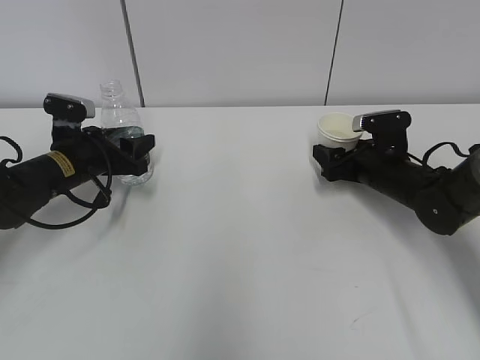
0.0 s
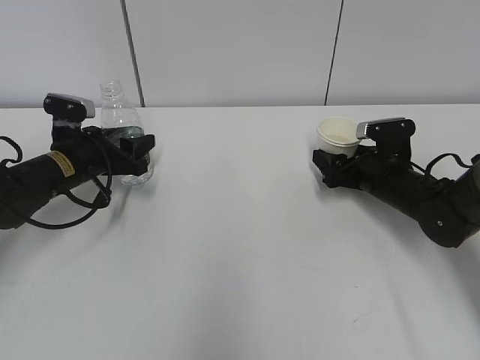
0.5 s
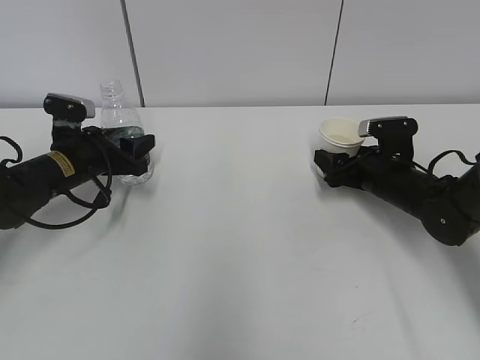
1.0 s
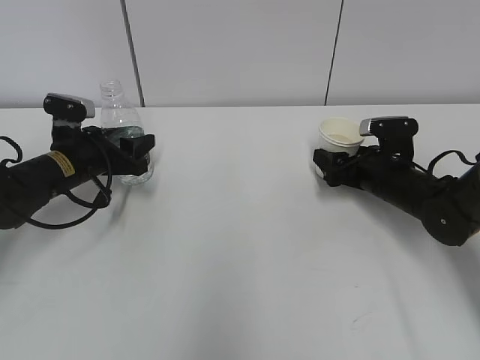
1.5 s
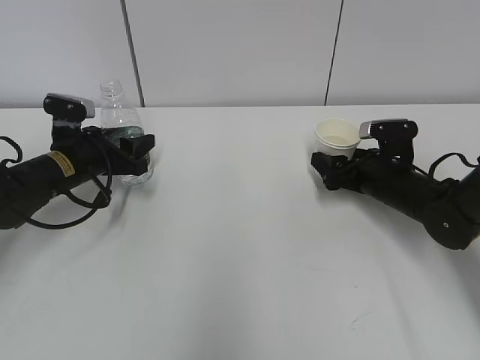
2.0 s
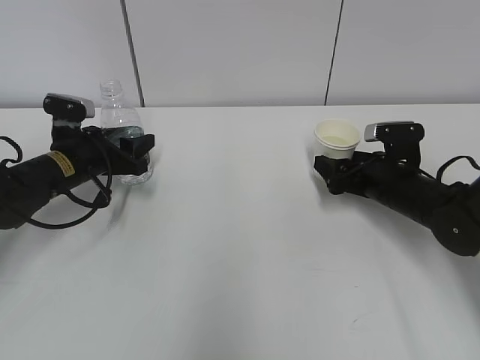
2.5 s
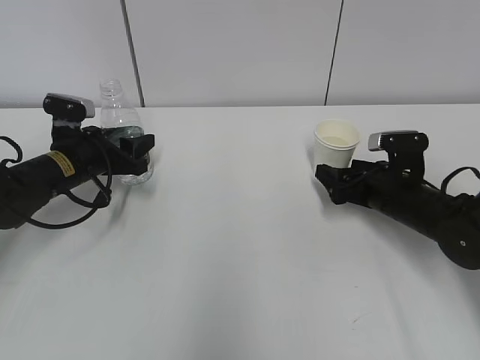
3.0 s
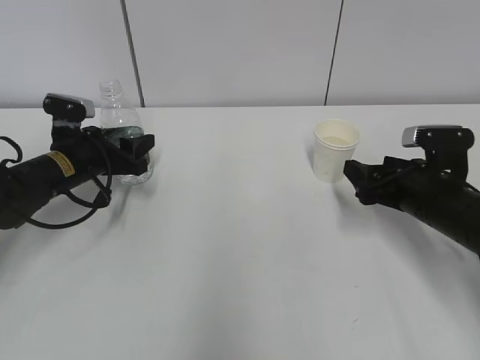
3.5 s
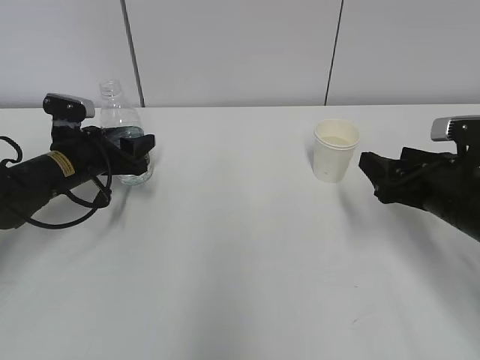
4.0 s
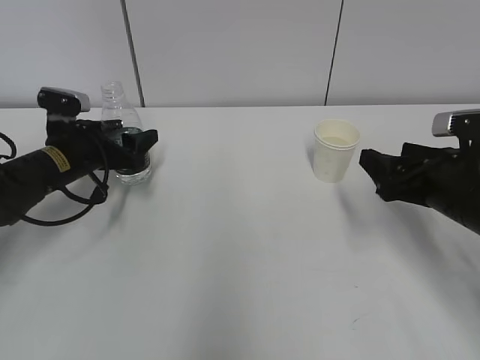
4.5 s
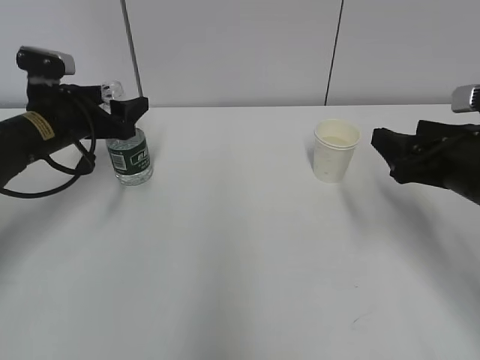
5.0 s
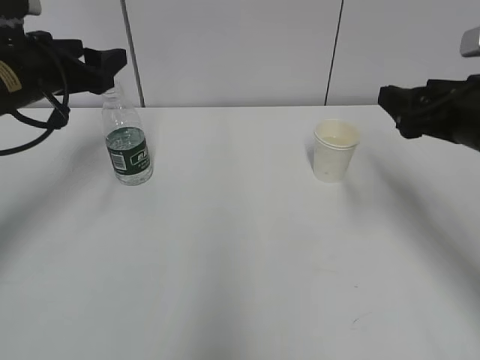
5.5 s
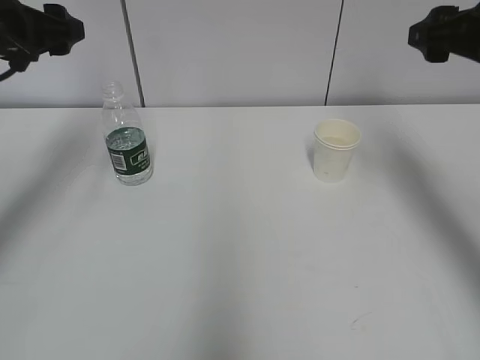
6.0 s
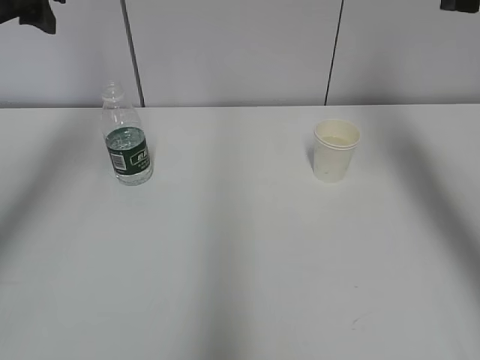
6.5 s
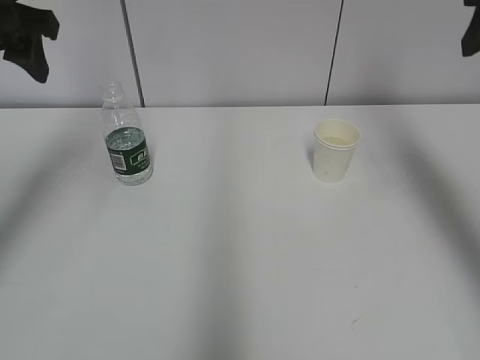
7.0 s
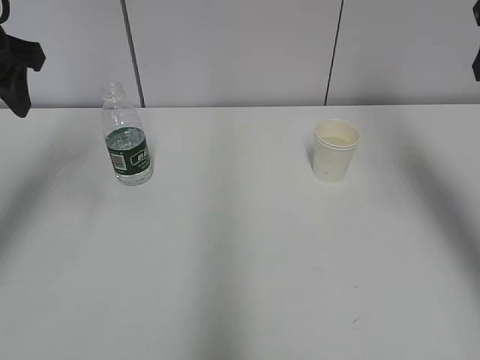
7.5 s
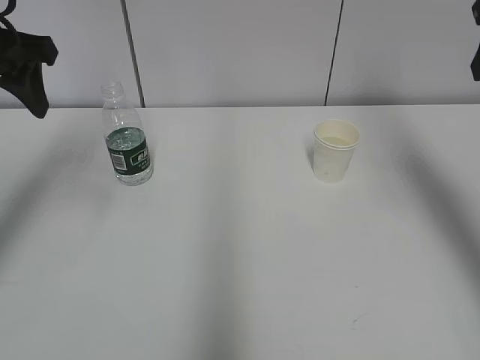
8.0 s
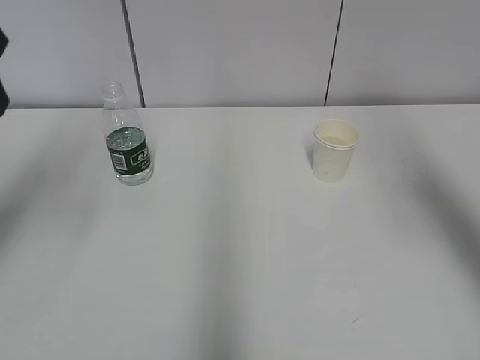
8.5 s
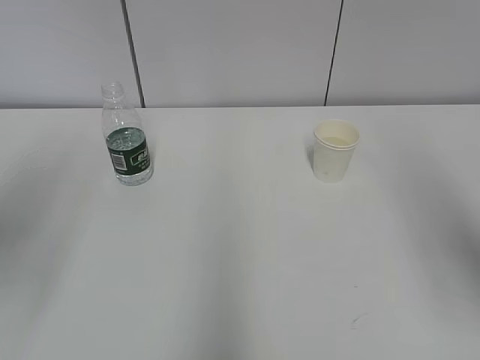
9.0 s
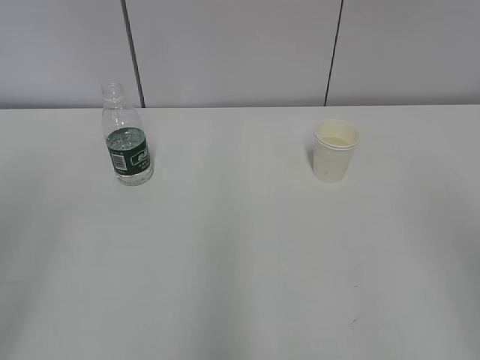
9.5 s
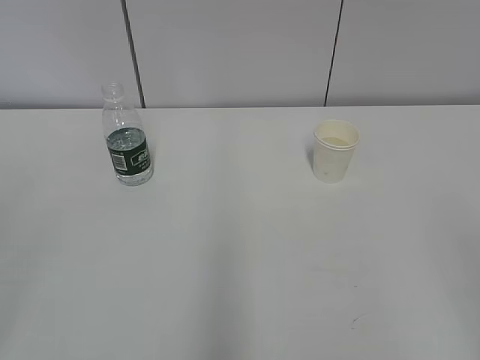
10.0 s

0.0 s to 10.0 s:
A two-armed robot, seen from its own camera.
0.0 to 2.0 s: There are only small adjustments of the grippers.
2.0 to 4.0 s: The right gripper heads backward and upward, covering some 15 cm.
4.0 to 6.0 s: Both grippers move upward, roughly 20 cm. The left gripper opens up.
6.0 to 8.0 s: The right gripper travels upward by about 5 cm, while the left gripper changes place by about 5 cm.
8.0 to 10.0 s: The two grippers go approximately 30 cm backward.

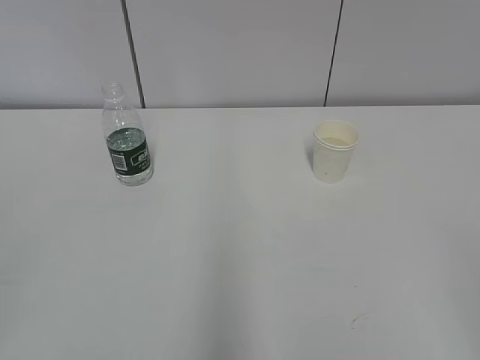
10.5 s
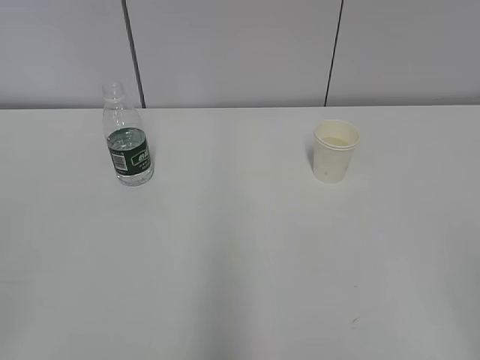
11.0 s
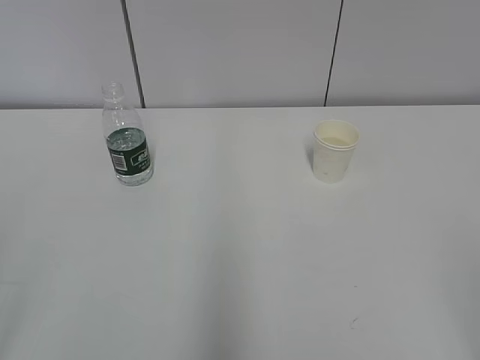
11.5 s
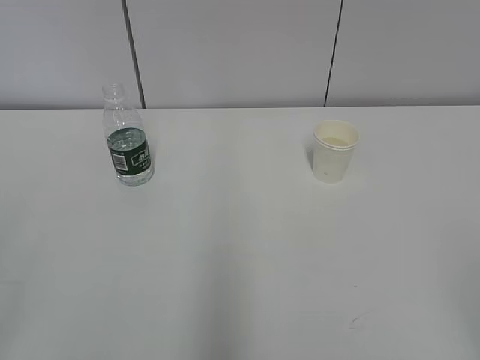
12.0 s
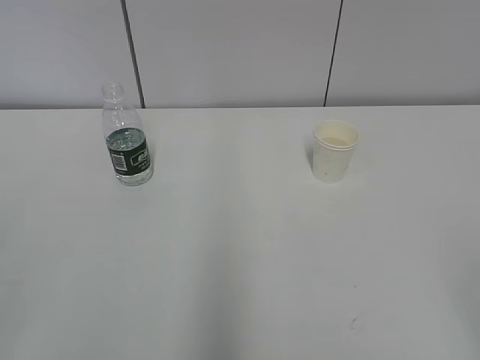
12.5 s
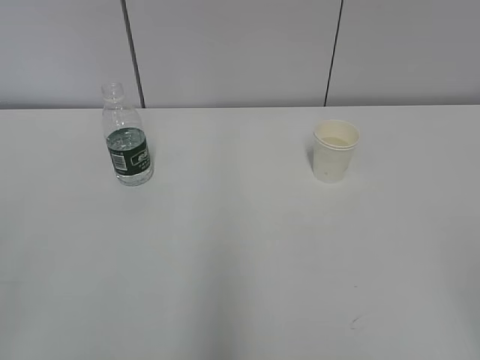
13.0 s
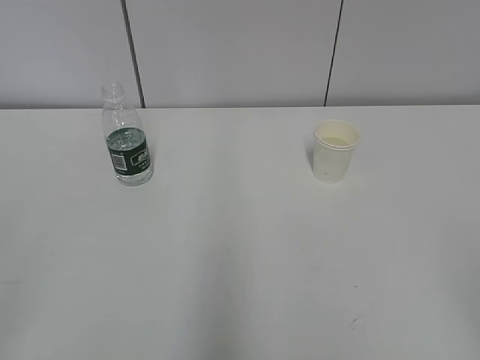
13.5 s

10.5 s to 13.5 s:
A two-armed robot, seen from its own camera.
12.0 to 13.5 s: The two grippers keep their place.

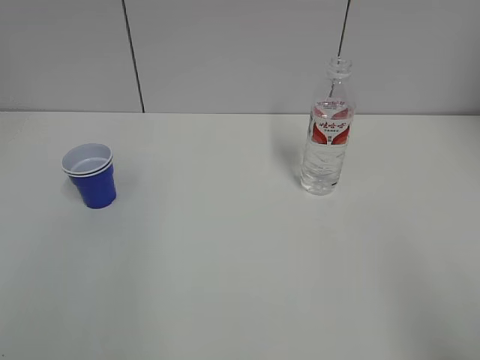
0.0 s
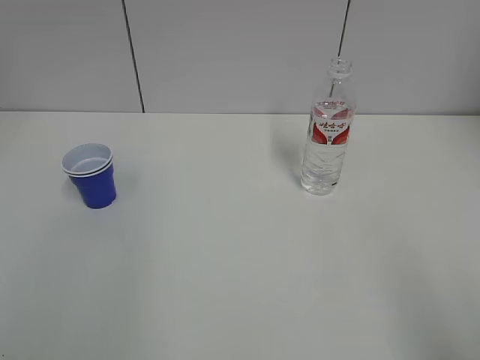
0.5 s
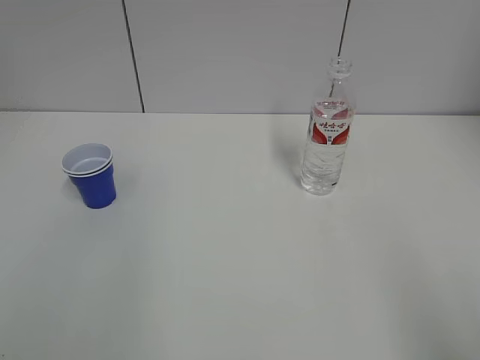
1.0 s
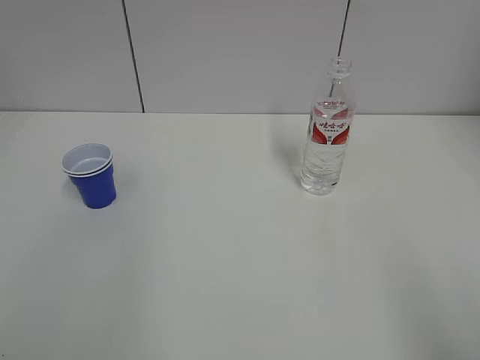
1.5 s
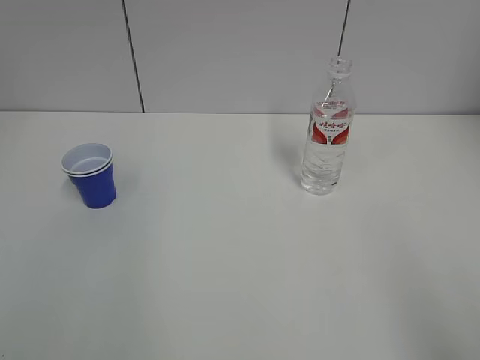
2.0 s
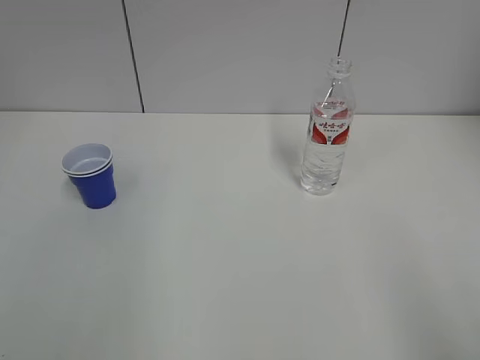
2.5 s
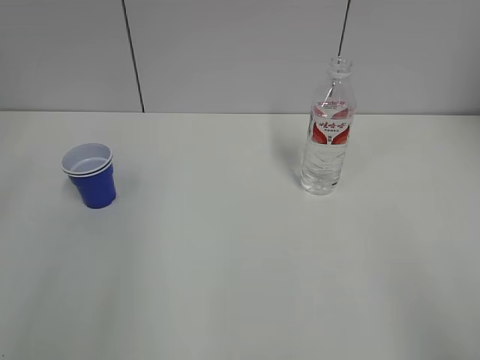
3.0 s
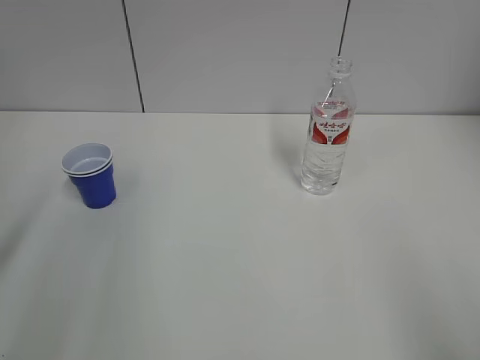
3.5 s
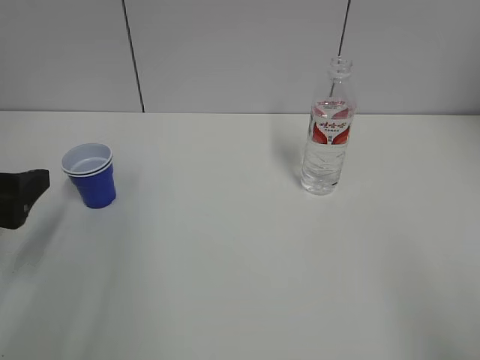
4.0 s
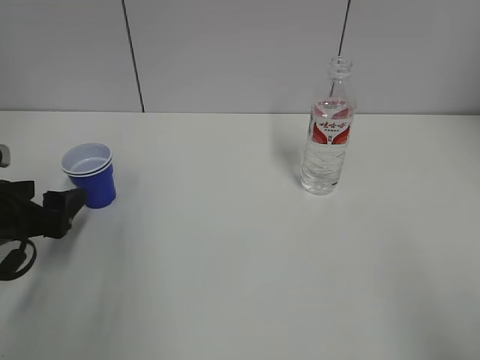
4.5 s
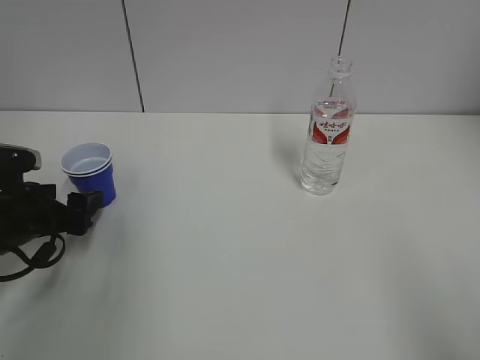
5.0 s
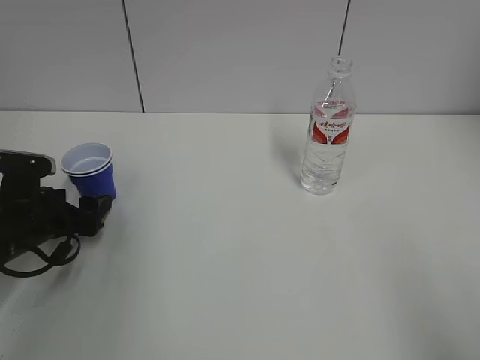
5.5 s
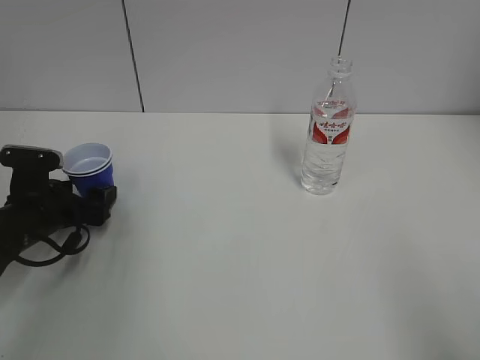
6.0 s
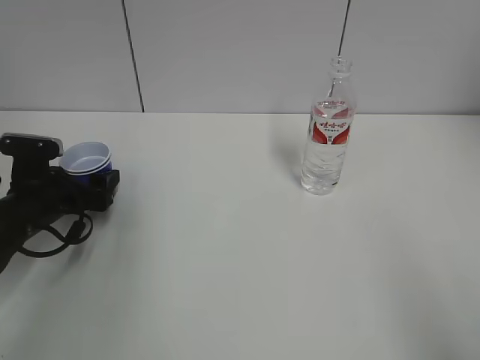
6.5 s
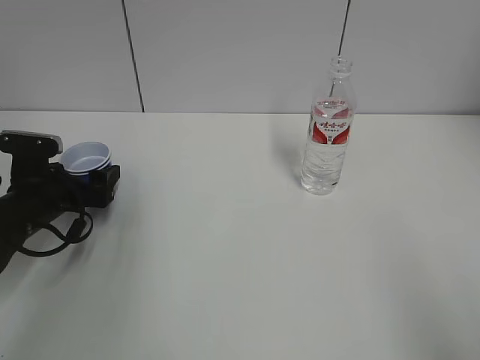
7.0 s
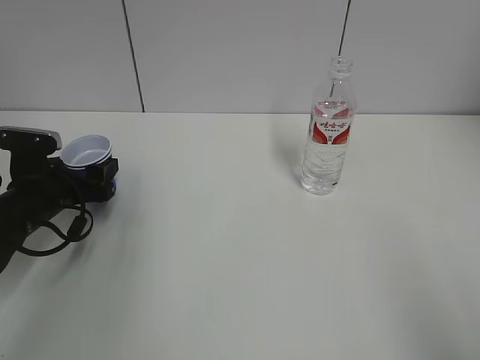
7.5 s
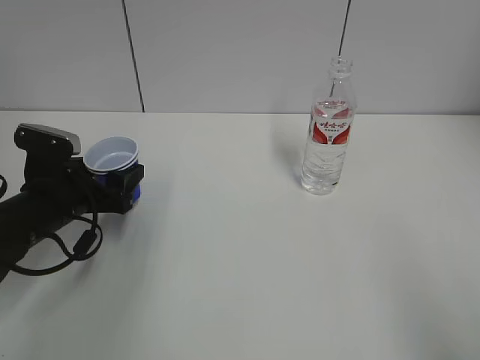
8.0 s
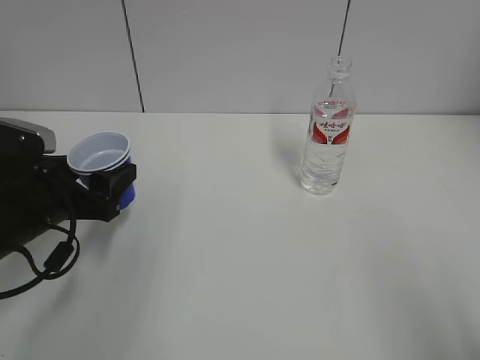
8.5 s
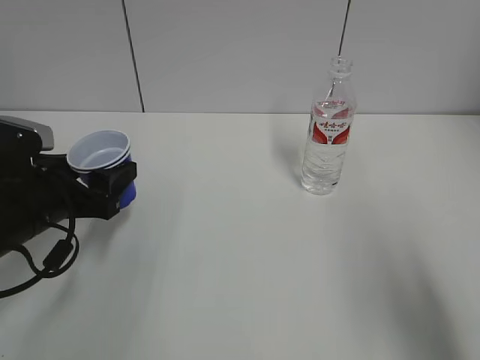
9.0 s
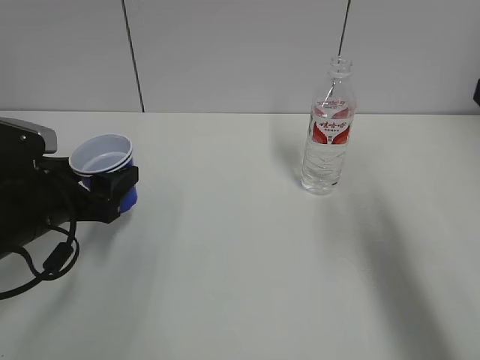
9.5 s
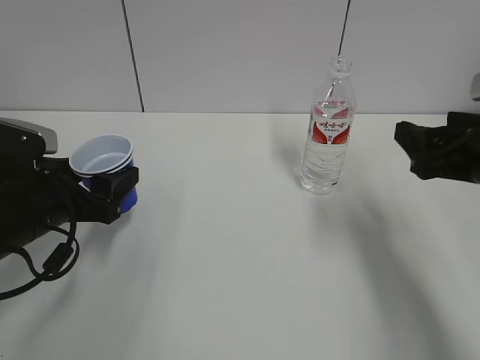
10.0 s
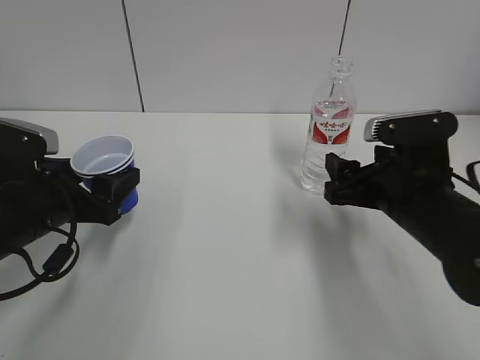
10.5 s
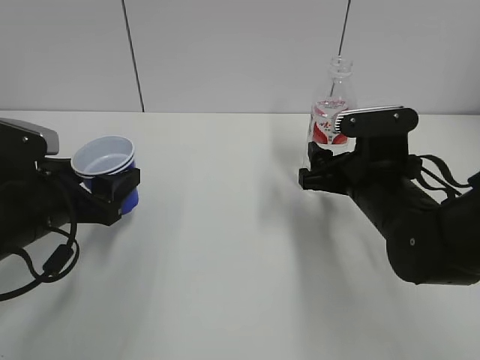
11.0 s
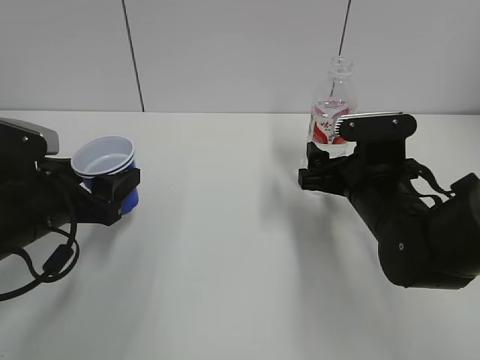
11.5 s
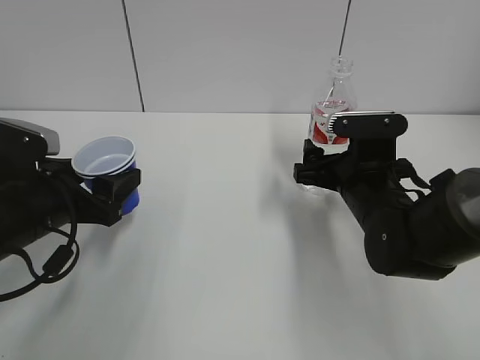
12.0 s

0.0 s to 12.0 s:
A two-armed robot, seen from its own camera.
Step, 0.0 to 6.0 s: Grab the paper cup with the left hand.
2.0 to 4.0 s: The left gripper moves forward and downward, approximately 25 cm, and opens its fingers.
4.0 to 6.0 s: The left gripper shifts about 15 cm downward and forward.
6.0 to 8.0 s: The left gripper ends up some 5 cm from where it was.
8.0 to 10.0 s: The right gripper heads forward, covering roughly 25 cm; the left gripper shifts by some 5 cm.
10.0 to 12.0 s: The right gripper is displaced to the left, downward and forward by some 15 cm, and opens up.

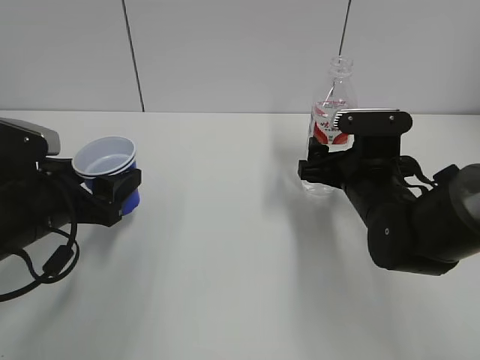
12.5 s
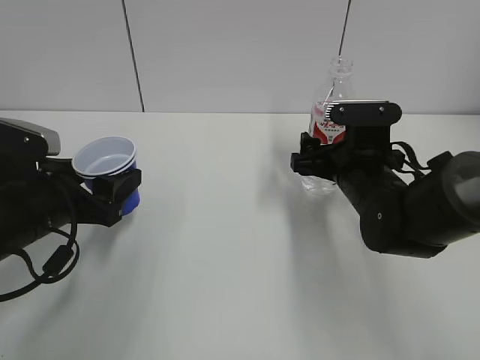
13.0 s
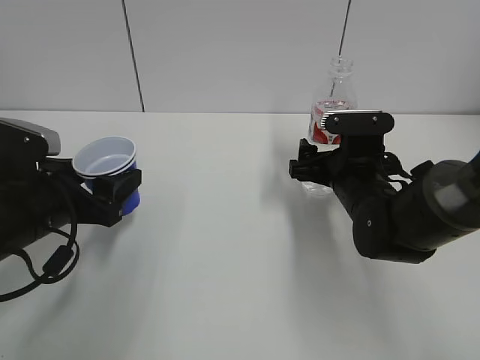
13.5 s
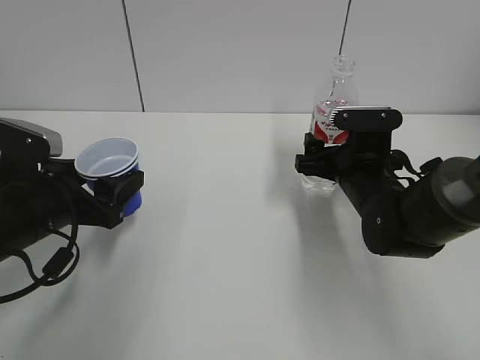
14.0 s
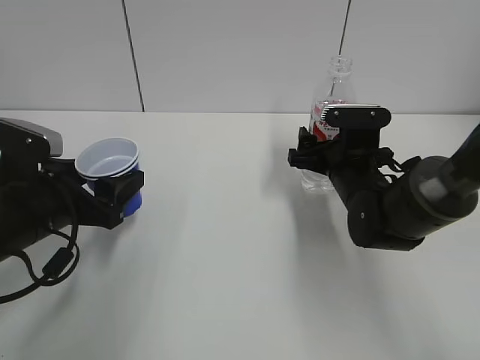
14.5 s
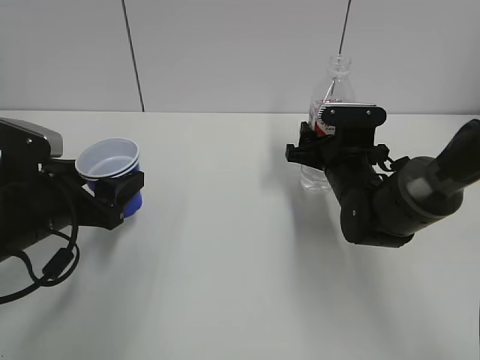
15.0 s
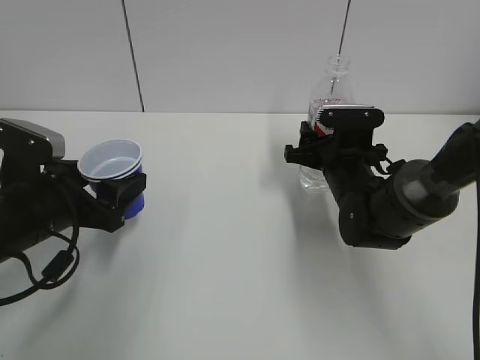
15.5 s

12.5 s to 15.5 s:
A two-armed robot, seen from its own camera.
12.5 to 14.0 s: The grippers move only a little.
14.0 to 15.5 s: The right gripper closes up.
